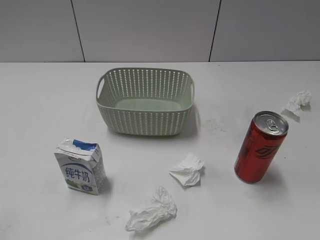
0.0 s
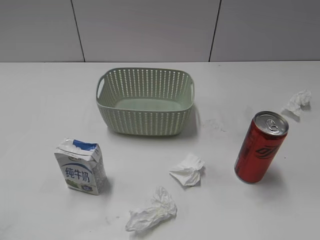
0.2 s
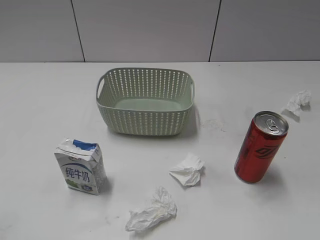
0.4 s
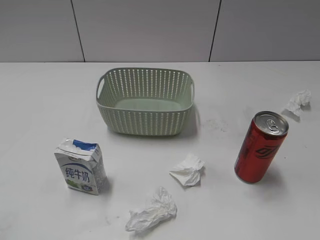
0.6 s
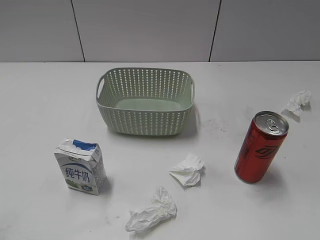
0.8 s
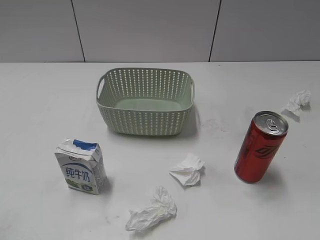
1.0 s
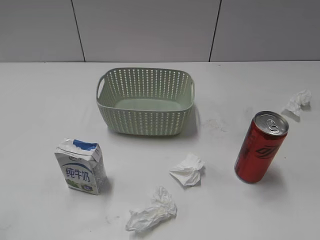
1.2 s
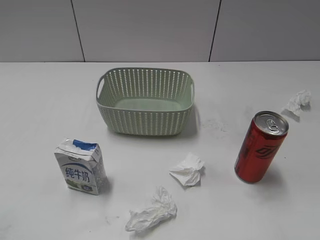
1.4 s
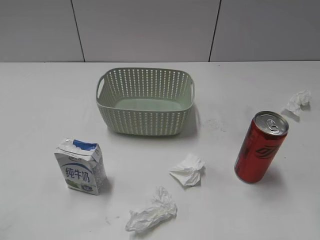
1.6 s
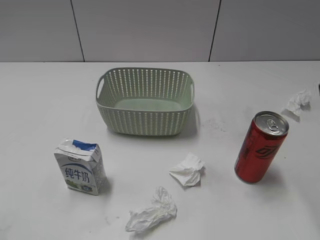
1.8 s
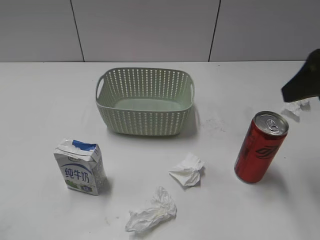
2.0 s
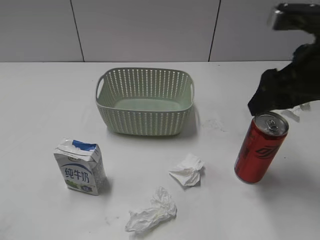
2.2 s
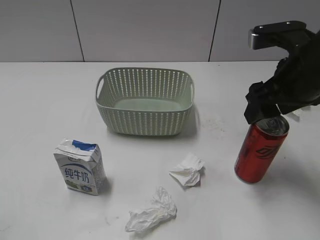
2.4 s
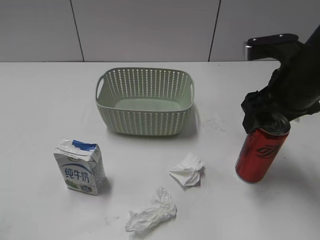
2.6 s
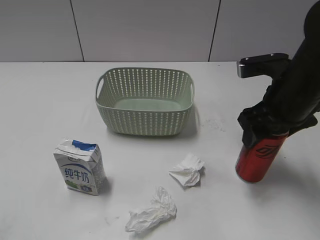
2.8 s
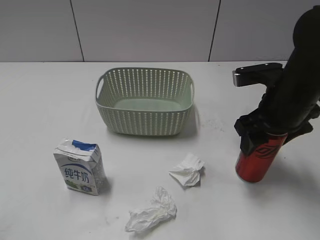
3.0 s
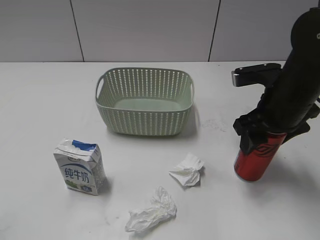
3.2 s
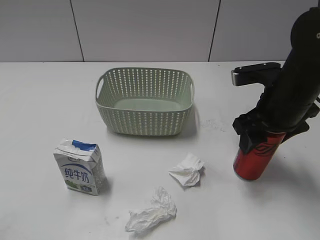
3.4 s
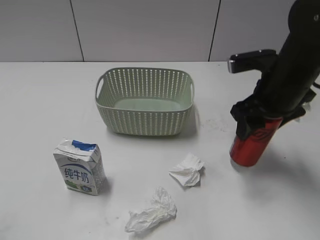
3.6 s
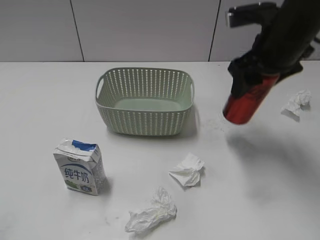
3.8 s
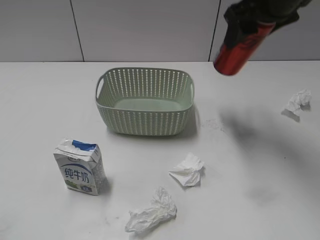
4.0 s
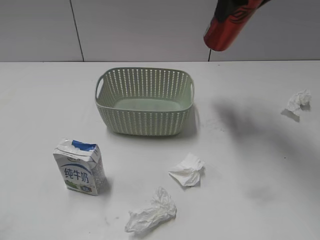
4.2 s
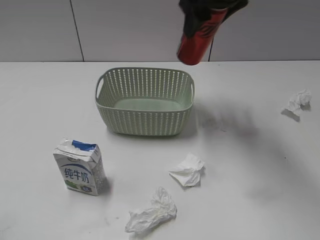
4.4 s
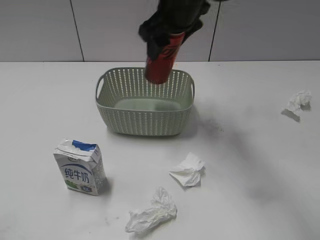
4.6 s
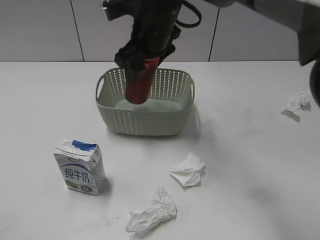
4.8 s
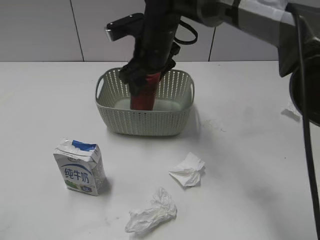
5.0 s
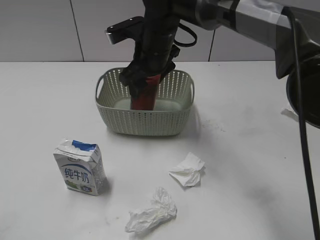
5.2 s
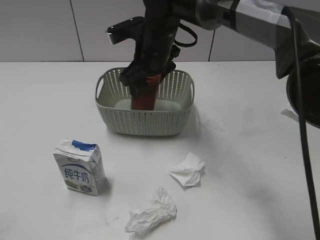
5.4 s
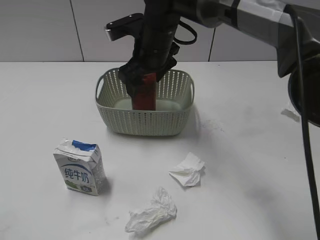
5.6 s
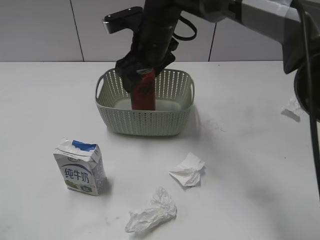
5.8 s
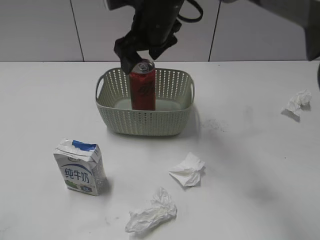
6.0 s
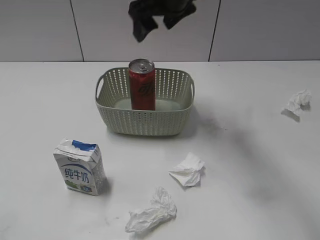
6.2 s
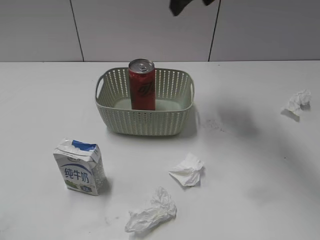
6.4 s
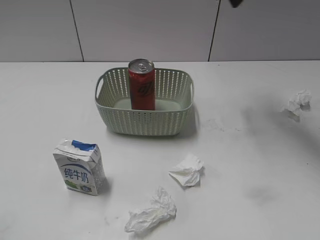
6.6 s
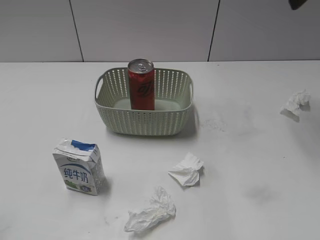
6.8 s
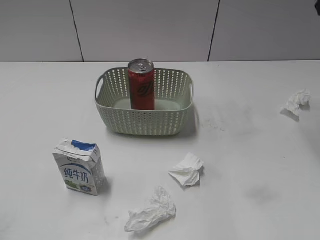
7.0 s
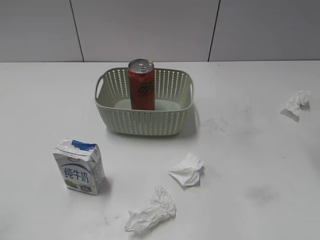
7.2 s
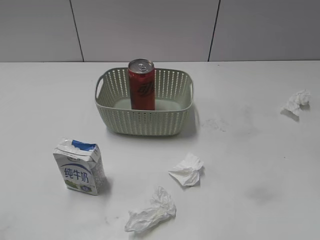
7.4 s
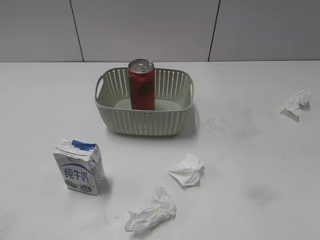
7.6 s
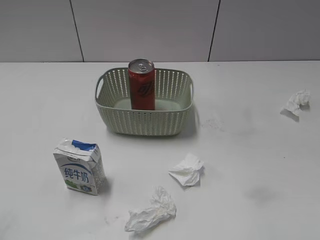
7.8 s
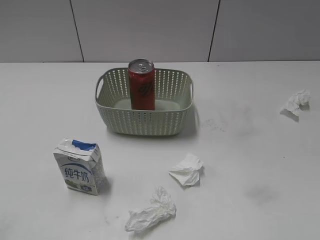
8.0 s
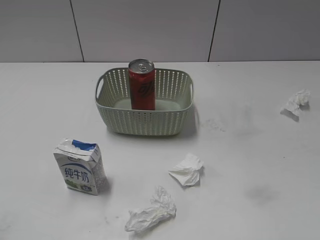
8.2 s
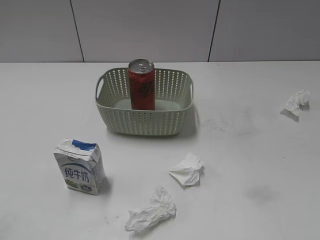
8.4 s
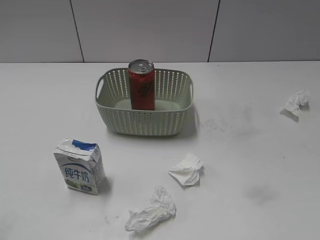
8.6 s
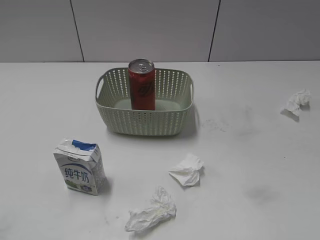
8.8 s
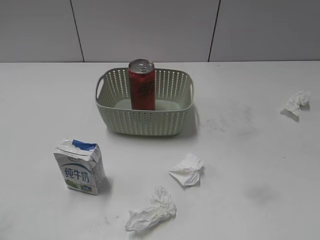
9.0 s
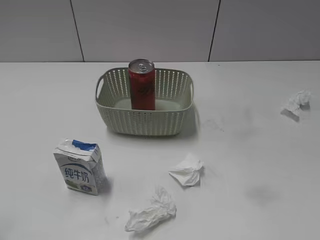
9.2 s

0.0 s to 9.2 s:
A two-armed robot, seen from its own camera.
Step, 1.8 to 3.0 s: Grasp the cola can with right gripper.
Step, 3.2 to 6.2 s: Place the cola can in the basket with right gripper.
1.6 to 3.0 s: The right gripper moves forward, downward and to the left, roughly 25 cm.
3.0 to 4.6 s: The right gripper goes about 20 cm to the left, forward and upward, and closes up.
4.6 to 6.2 s: The right gripper travels downward and back again, about 10 cm each way, and opens its fingers.
6.2 to 7.6 s: The right gripper moves to the right and backward, some 35 cm, and closes its fingers.

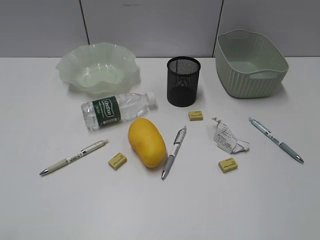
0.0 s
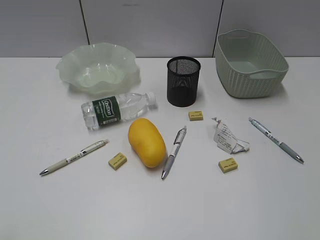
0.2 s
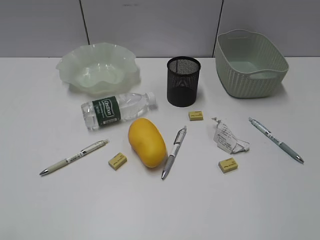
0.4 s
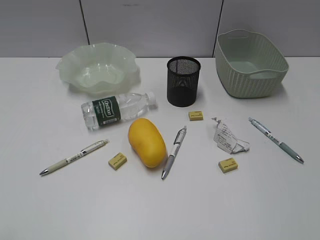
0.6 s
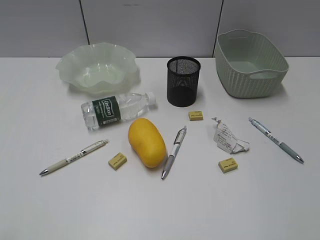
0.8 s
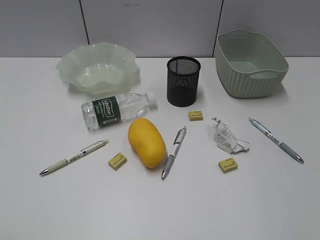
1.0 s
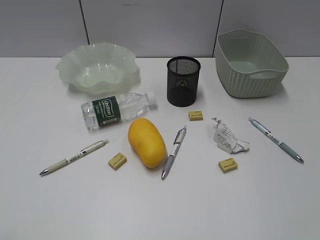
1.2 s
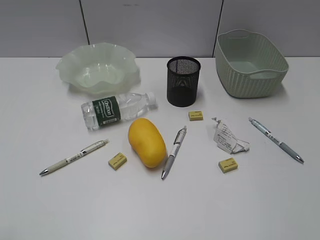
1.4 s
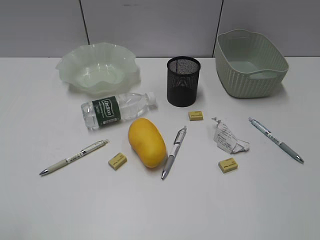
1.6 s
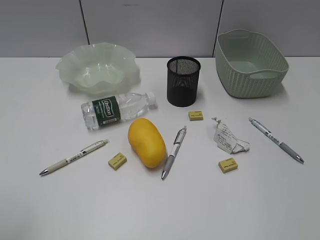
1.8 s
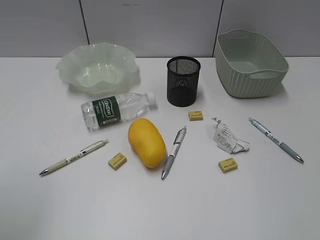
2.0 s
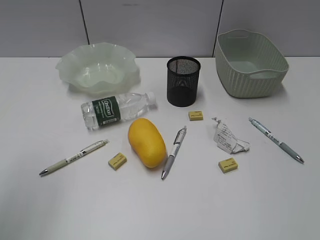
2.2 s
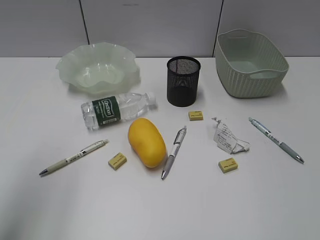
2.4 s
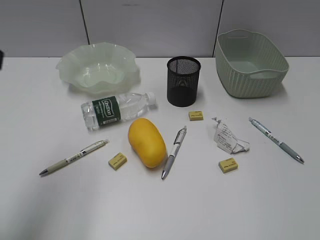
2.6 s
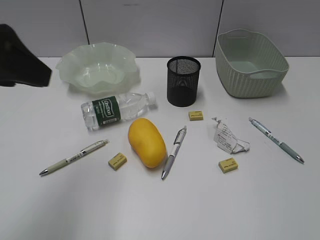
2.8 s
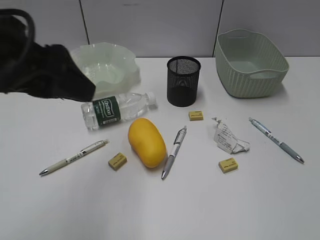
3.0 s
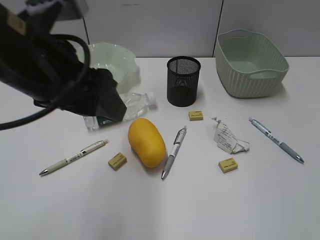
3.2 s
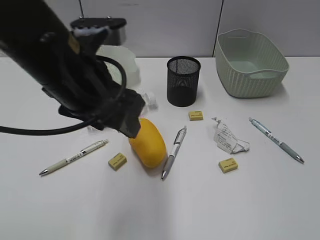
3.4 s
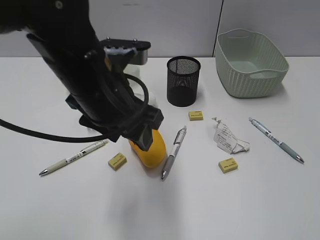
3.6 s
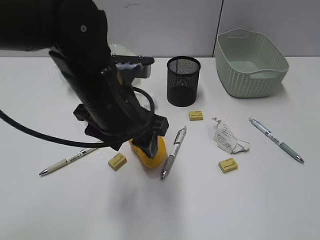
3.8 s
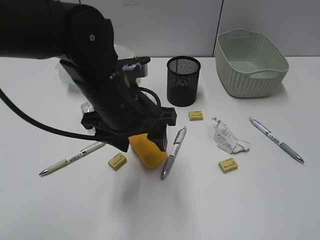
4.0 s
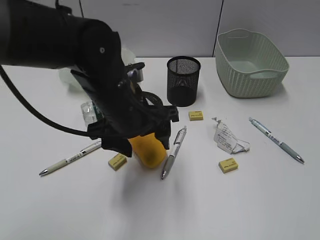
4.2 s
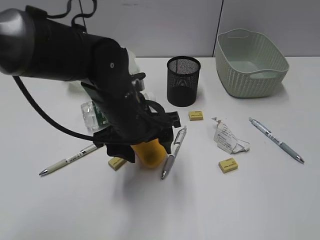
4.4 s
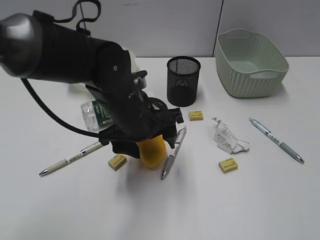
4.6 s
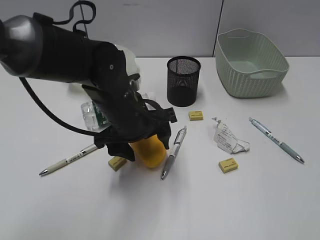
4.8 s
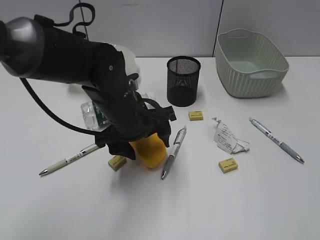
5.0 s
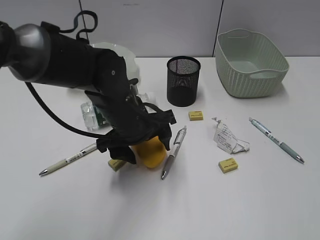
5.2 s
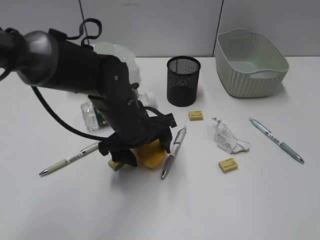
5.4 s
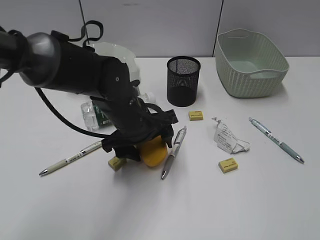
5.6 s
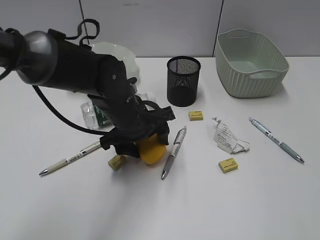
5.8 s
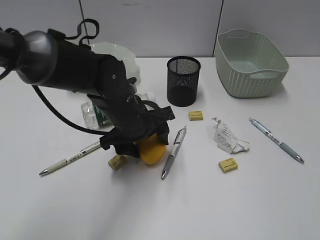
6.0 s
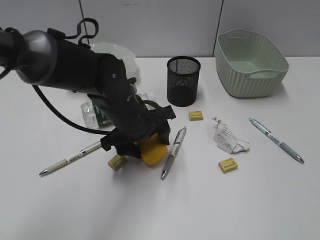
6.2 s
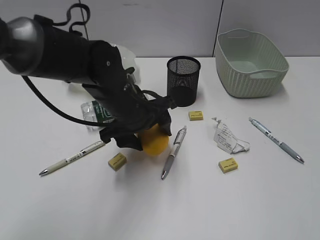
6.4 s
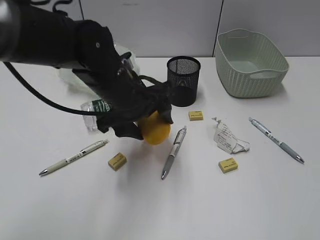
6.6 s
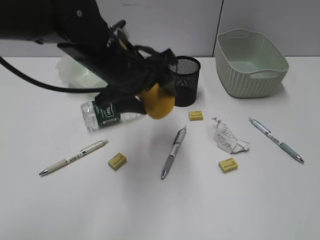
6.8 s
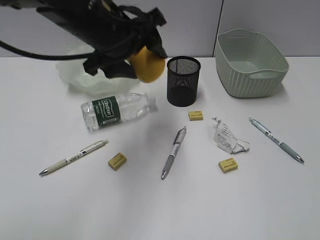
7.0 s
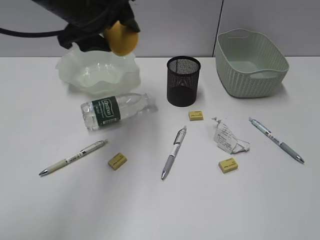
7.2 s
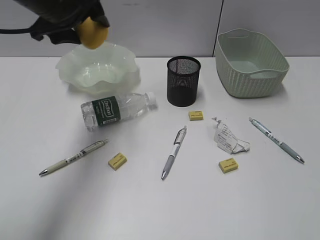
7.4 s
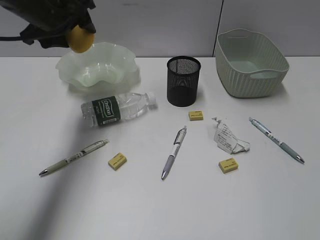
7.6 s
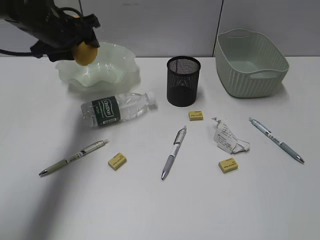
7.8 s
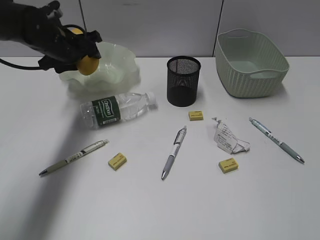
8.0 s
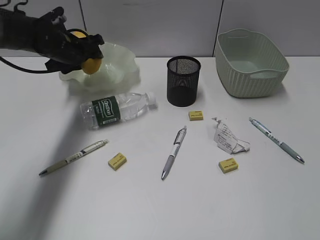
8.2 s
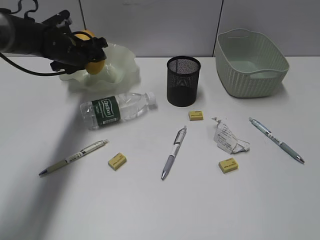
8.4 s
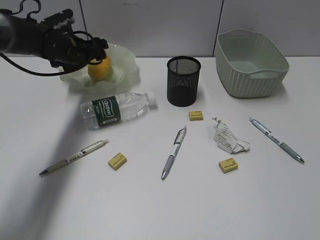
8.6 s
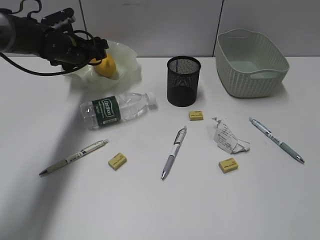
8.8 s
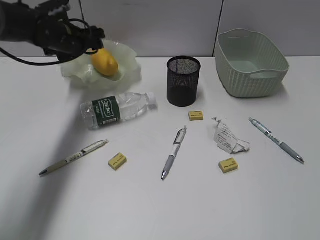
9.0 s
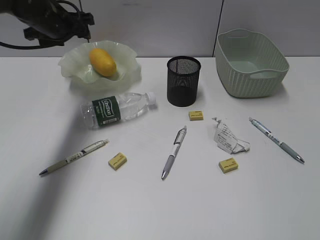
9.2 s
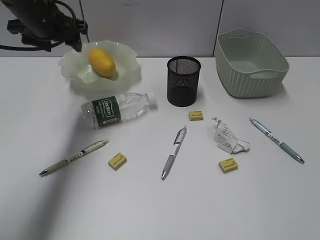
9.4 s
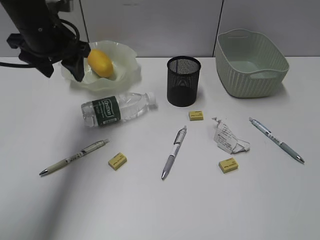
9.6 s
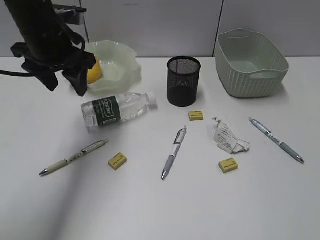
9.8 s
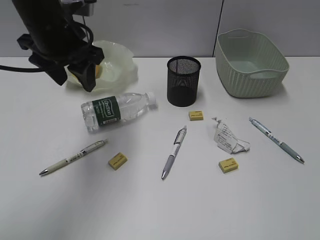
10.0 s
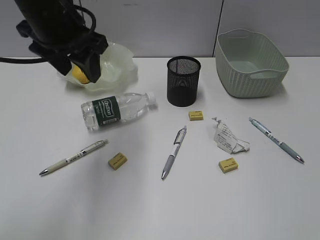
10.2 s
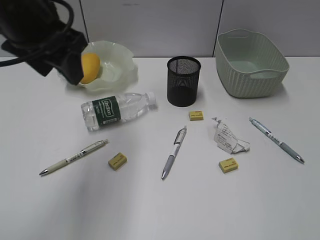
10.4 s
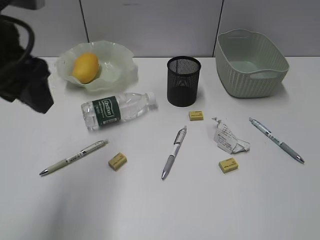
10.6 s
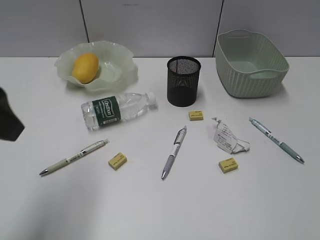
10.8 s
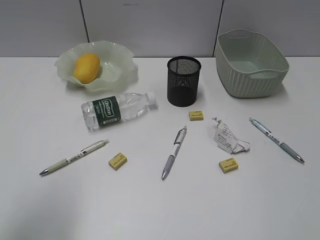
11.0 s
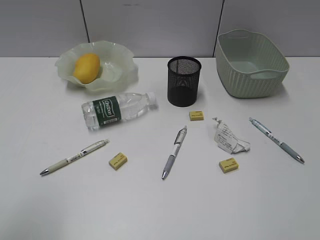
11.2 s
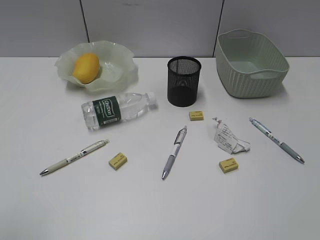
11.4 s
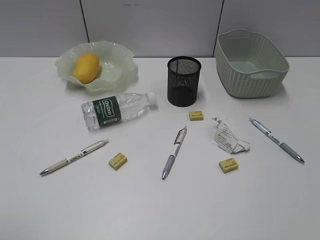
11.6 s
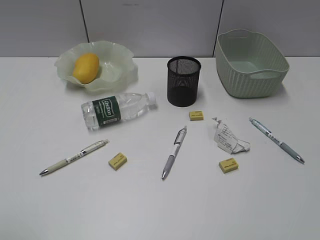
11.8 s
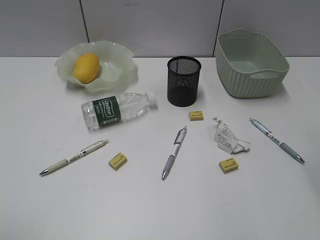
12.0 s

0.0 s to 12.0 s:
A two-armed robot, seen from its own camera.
Step, 2.6 to 6.0 s: Grasp the mango with left gripper.
Step, 6.2 to 9.0 s: Place the mango in the plate with left gripper.
1.6 to 3.0 s: The left gripper travels forward and to the right by approximately 25 cm.
3.0 to 4.4 s: The left gripper travels downward, to the right and forward by roughly 20 cm.
4.4 to 6.0 s: The left gripper moves about 5 cm.
6.0 to 7.6 s: The left gripper travels upward, to the left and forward by about 20 cm.
7.6 to 9.0 s: The left gripper shifts approximately 15 cm downward and forward.
9.0 to 10.4 s: The left gripper heads backward and upward, covering some 25 cm.
10.4 to 12.0 s: The right gripper is displaced forward by roughly 20 cm. The left gripper shifts about 30 cm backward and to the left.

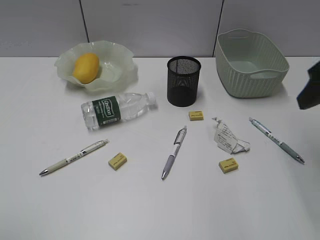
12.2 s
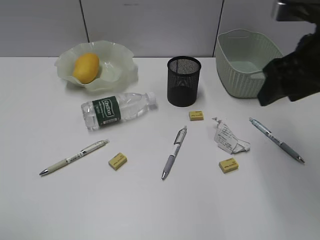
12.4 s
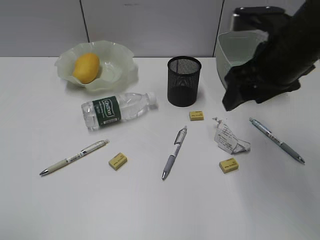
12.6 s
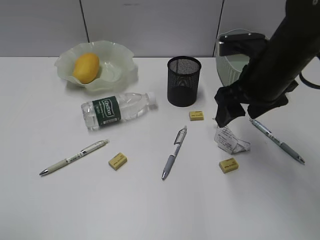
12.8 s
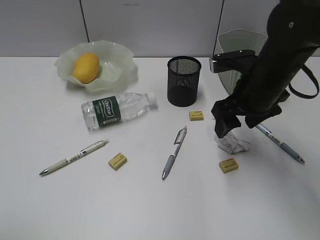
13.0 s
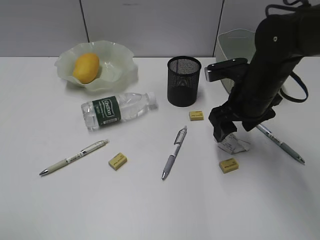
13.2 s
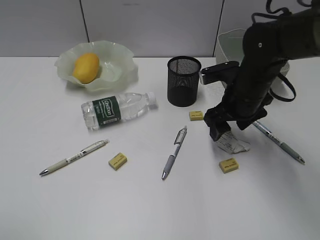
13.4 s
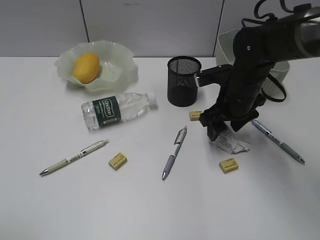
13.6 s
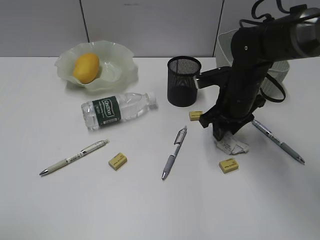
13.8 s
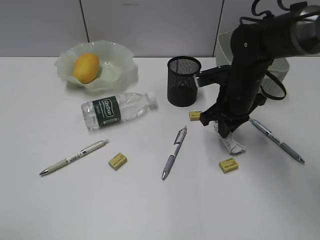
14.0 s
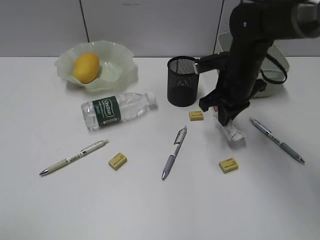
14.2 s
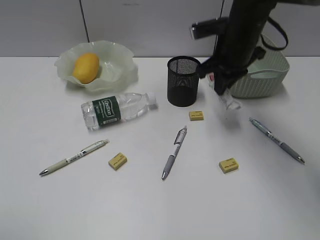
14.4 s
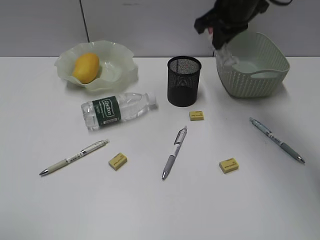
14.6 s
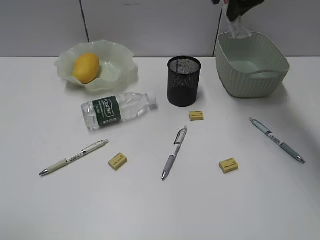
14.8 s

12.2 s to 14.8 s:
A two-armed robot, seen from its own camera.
12.2 to 13.4 s: The right gripper travels downward, to the left and forward by roughly 20 cm.
13.4 to 14.8 s: The right gripper heads upward and forward, covering roughly 20 cm, and closes up.
